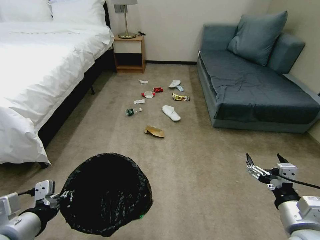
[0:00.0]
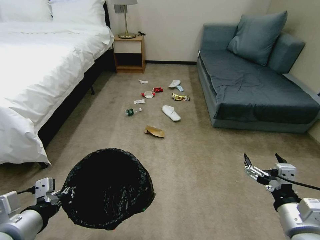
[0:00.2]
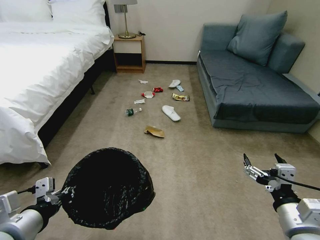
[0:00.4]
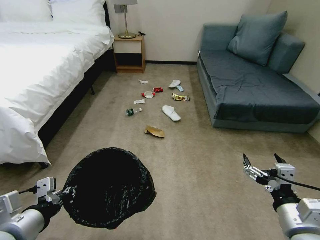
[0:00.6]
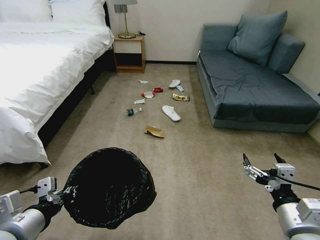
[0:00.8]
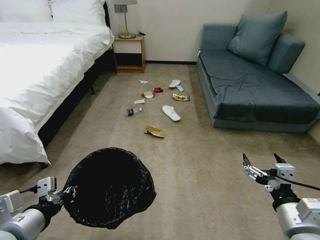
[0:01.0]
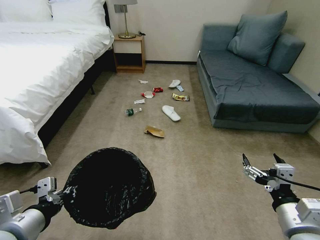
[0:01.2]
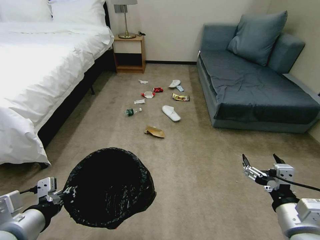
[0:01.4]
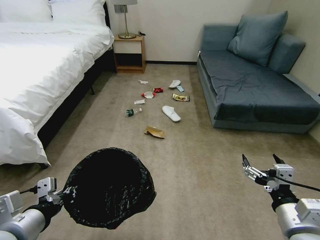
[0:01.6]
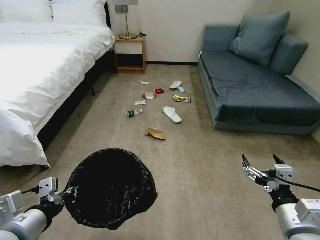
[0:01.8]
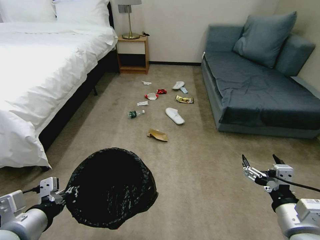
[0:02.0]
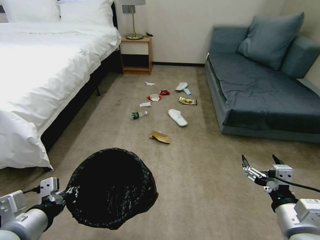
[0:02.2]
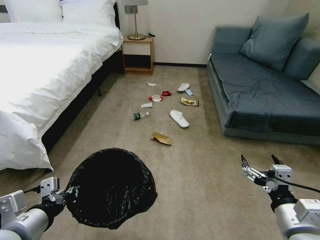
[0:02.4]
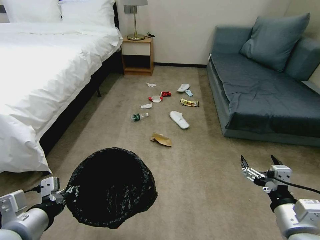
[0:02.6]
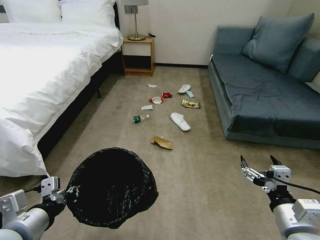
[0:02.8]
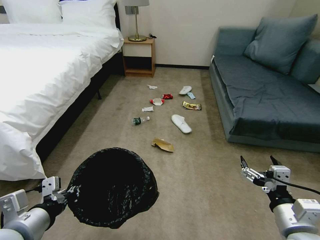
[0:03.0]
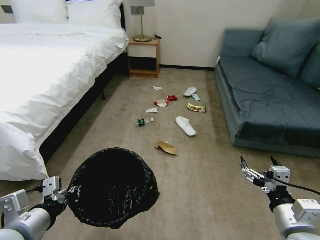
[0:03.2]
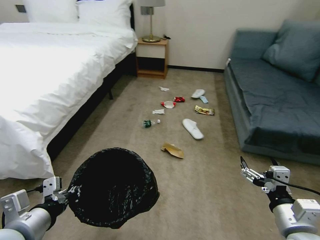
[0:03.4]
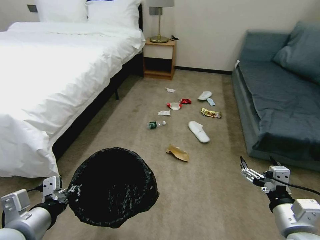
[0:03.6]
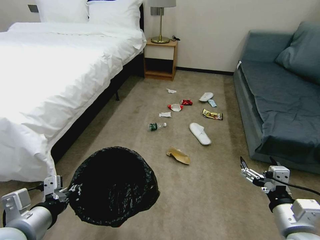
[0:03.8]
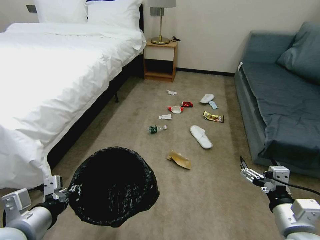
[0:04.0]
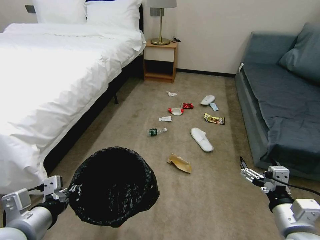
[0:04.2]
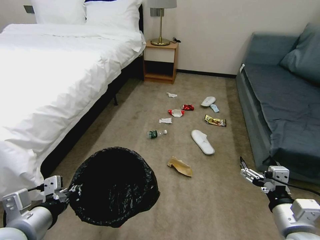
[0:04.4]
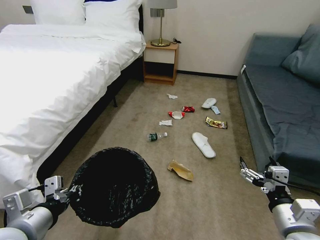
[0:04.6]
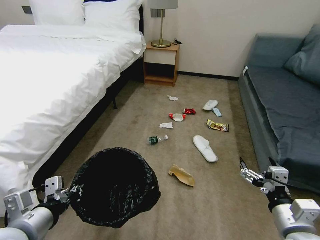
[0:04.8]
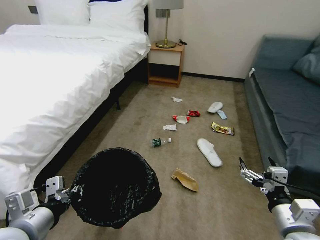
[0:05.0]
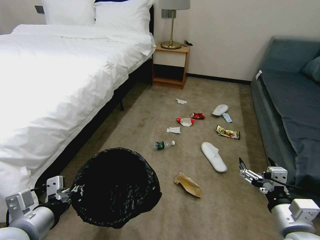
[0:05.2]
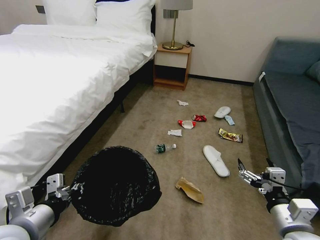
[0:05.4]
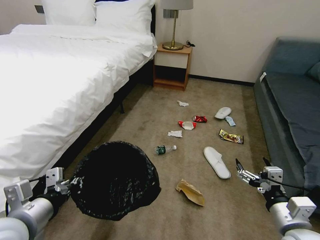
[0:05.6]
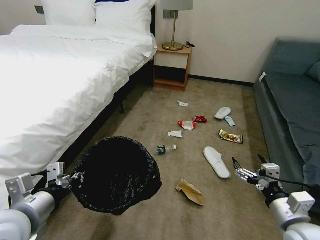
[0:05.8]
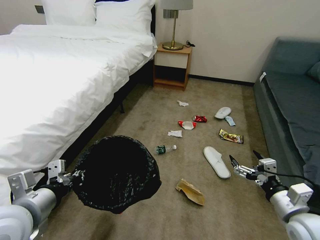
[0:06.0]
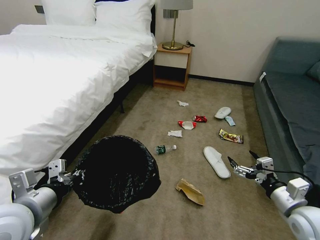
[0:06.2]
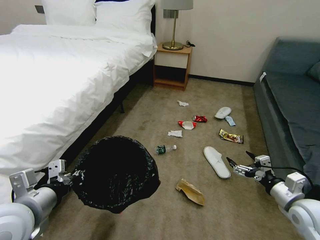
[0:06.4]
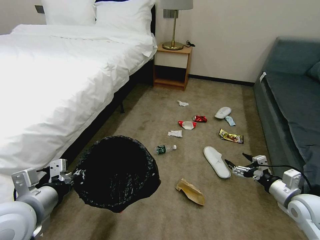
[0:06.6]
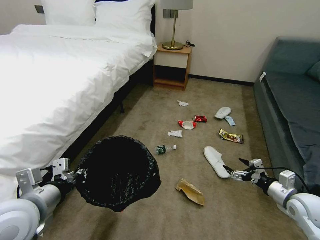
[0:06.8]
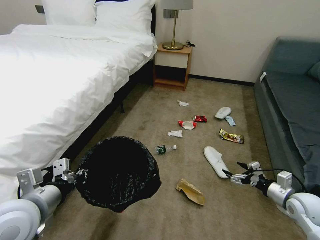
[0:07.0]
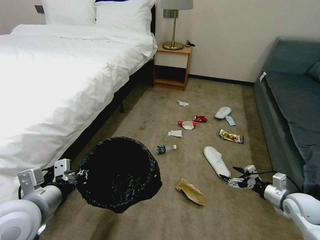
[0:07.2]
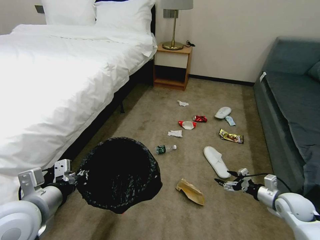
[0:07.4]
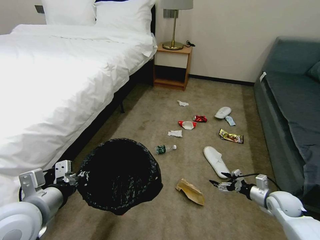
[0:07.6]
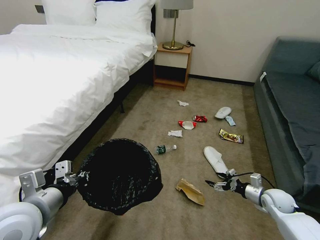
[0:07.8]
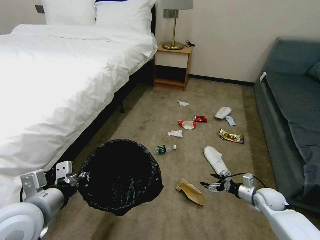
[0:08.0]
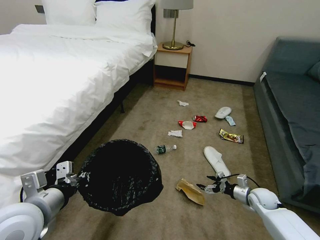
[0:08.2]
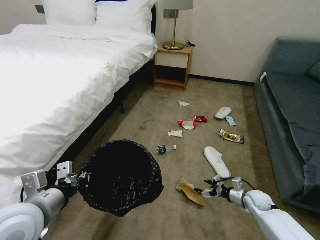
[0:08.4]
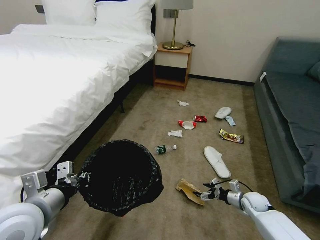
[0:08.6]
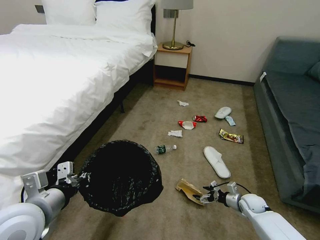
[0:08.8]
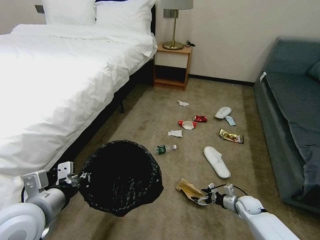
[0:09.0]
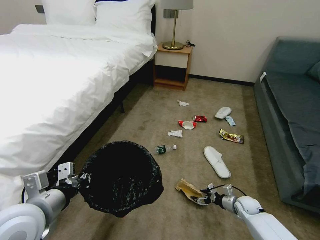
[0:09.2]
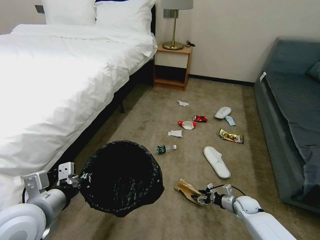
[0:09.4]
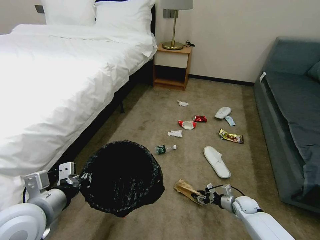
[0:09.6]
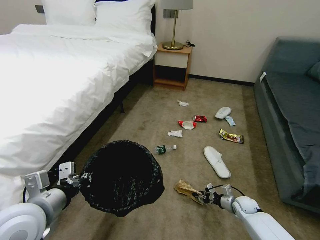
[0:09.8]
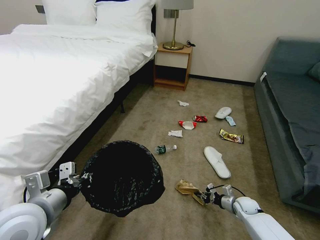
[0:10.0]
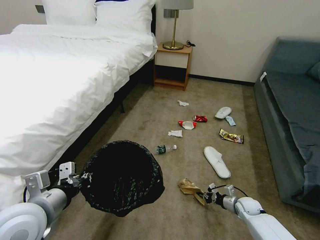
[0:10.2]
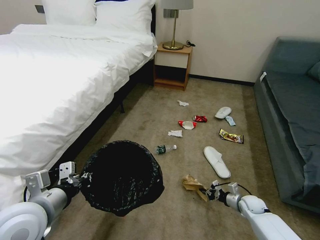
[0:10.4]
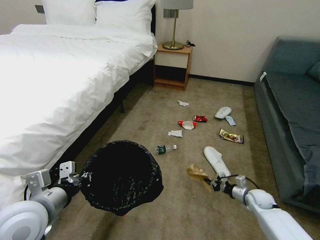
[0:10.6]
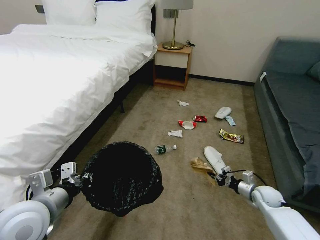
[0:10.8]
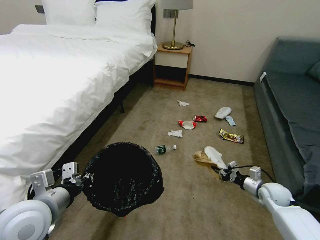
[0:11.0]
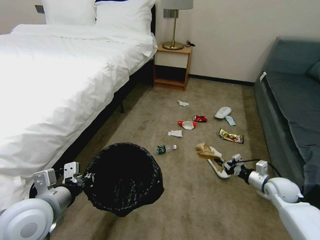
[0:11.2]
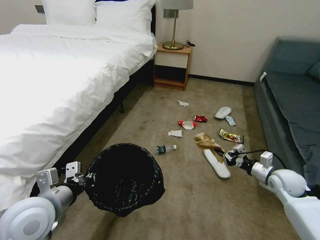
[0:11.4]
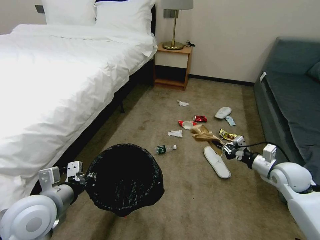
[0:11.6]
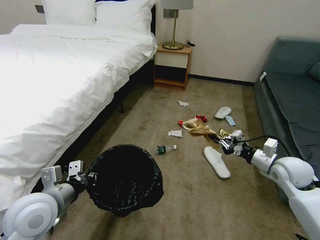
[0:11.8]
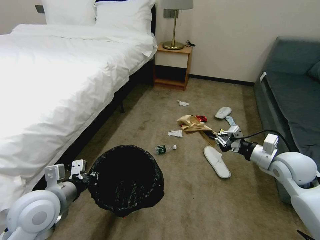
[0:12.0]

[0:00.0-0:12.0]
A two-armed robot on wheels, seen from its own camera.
Task of the whole recording: Pick up the trash bin, then pick up the garbage on the floor and place it into the trash bin.
0:04.4 to 0:06.0: The right gripper moves about 5 cm.
0:06.0 to 0:07.6: The right gripper goes approximately 20 cm downward, forward and to the right.
0:07.6 to 0:09.0: The right gripper is displaced downward and to the left by about 15 cm.
0:09.0 to 0:10.4: The right gripper closes up.
0:10.4 to 0:12.0: The right gripper travels upward by approximately 30 cm.

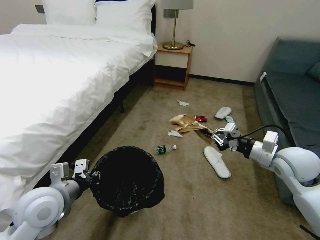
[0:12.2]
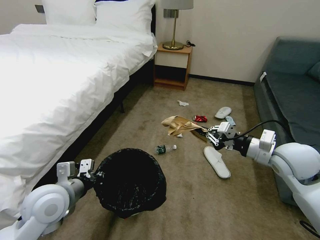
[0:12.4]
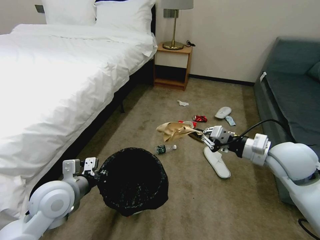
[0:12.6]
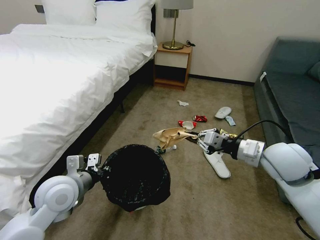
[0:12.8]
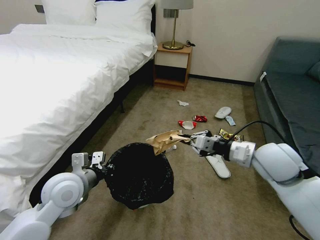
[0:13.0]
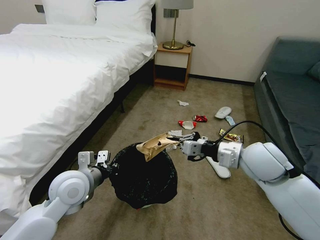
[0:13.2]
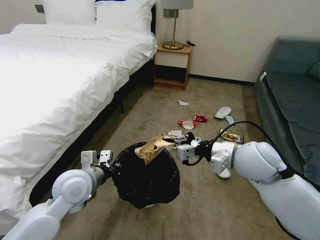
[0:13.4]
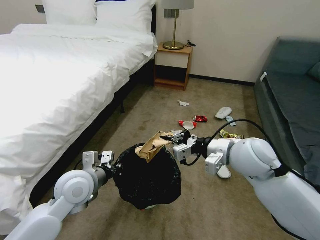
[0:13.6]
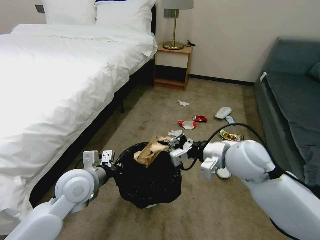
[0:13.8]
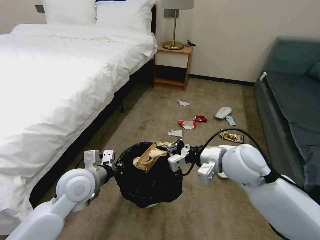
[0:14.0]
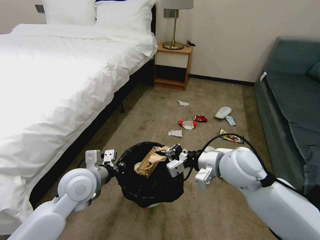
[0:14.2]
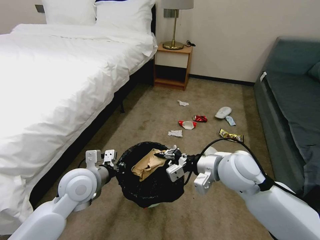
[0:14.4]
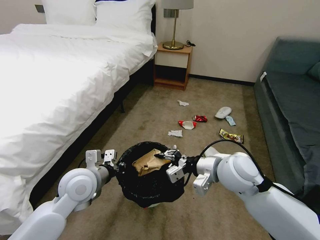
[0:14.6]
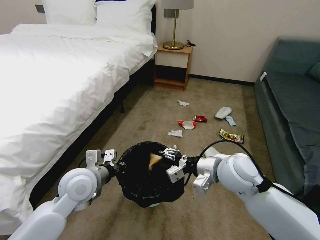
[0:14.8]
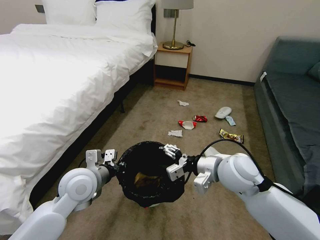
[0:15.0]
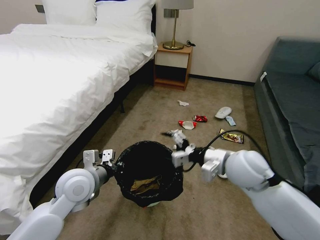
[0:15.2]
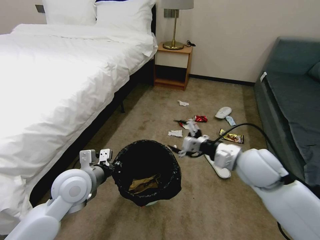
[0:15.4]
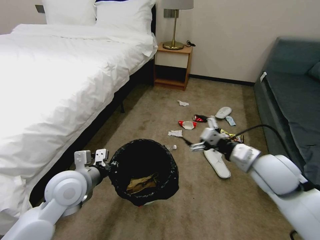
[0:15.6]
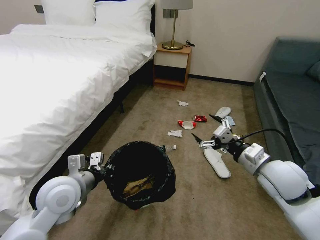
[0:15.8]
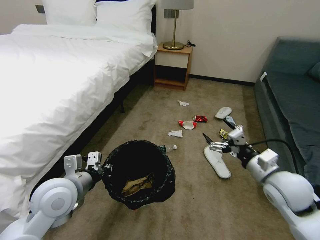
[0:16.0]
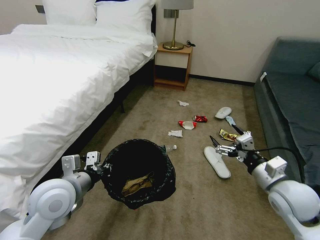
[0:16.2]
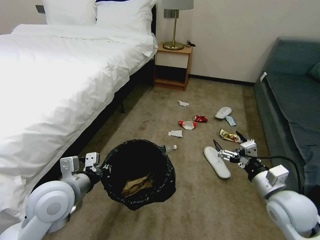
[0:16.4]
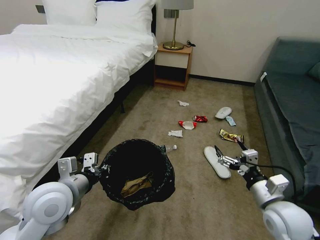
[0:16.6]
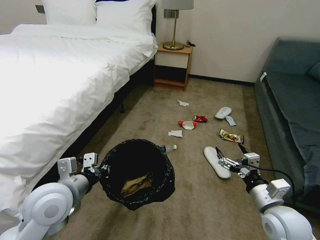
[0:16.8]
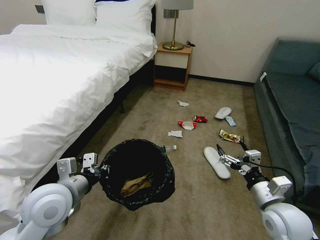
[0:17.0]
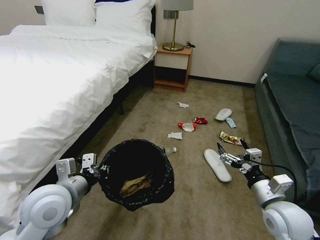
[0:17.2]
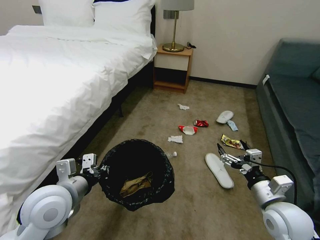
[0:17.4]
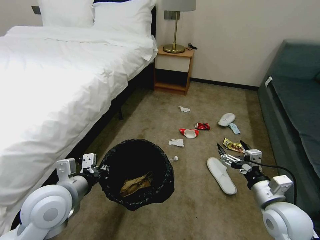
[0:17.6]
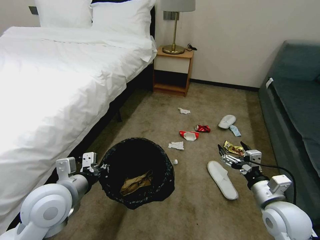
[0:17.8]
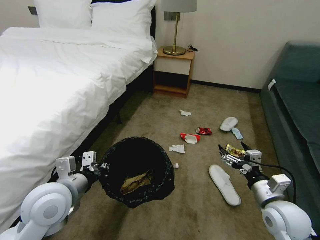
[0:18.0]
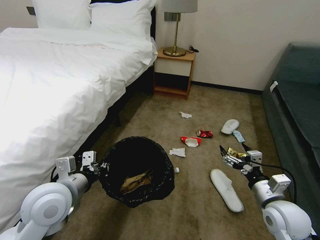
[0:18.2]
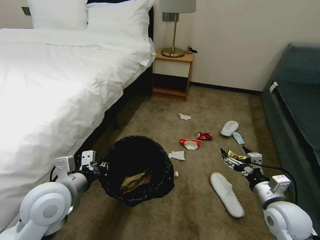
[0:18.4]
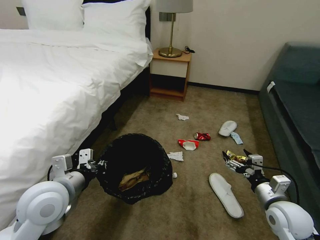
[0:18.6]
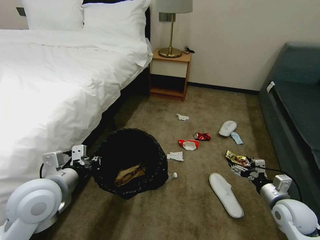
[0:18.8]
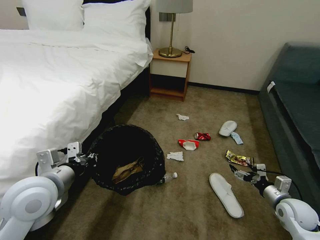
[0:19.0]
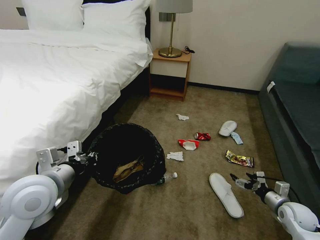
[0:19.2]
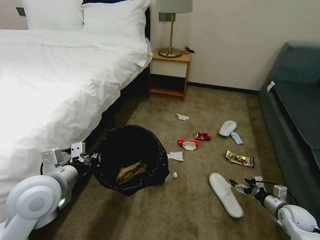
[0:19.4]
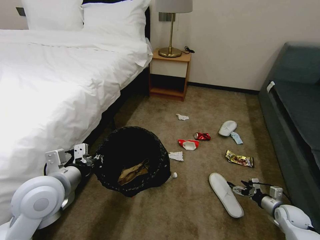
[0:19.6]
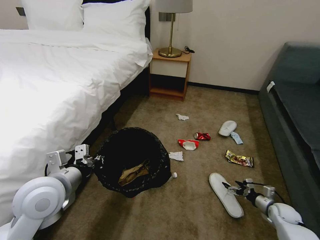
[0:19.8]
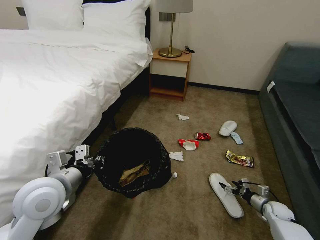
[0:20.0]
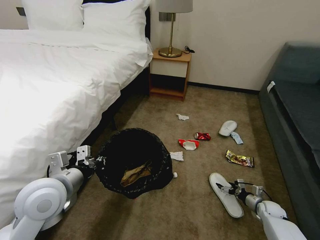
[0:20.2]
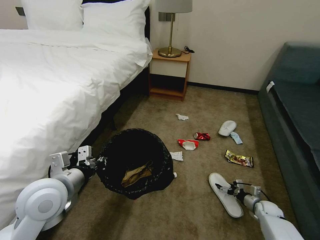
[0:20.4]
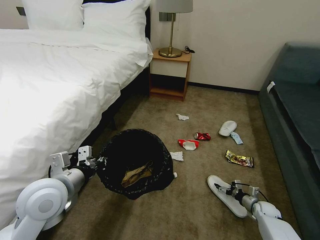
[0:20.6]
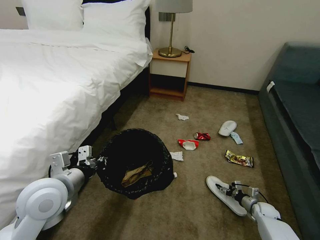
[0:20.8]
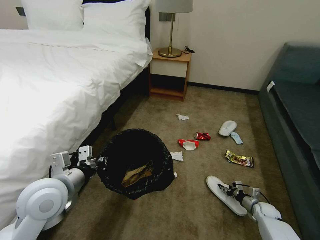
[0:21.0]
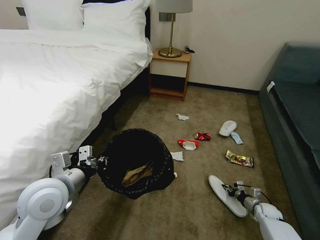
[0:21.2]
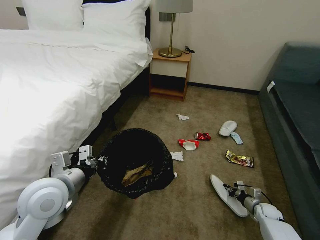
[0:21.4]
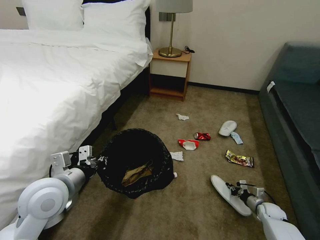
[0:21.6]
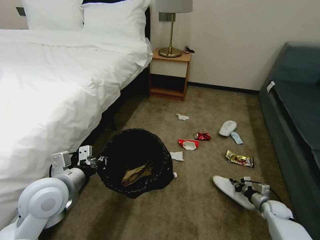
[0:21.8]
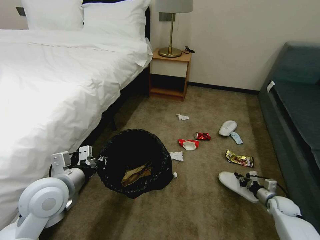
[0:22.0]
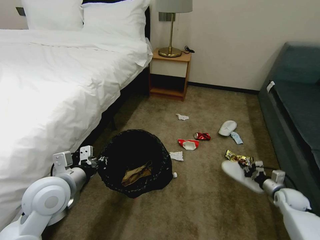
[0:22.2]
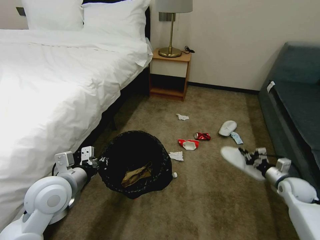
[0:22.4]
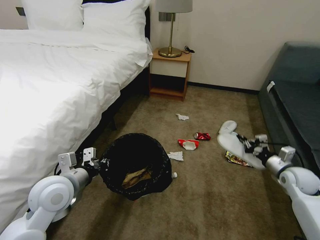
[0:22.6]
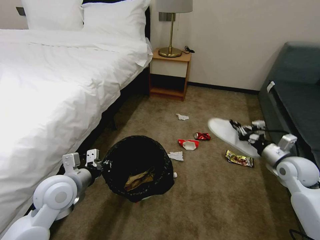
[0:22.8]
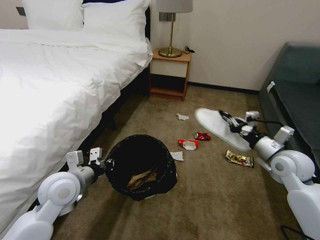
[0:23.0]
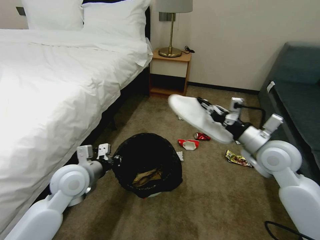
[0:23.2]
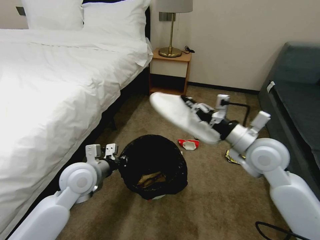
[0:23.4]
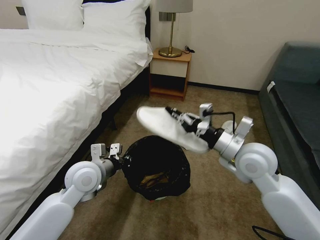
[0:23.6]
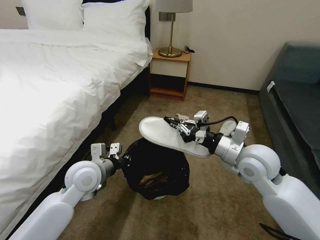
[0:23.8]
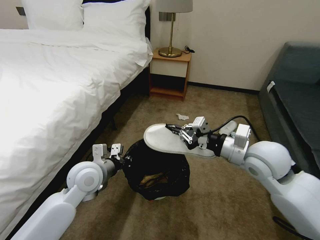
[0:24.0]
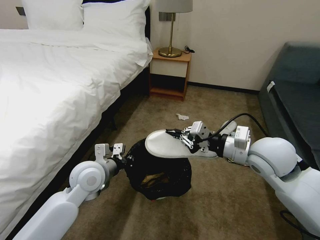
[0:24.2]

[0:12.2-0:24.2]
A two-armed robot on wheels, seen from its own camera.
Task of the whole recording: Pick up the trash bin, then pick up the garbage on the floor and place it into the trash bin.
0:12.2 to 0:13.8: The left gripper shifts approximately 10 cm forward and to the right, while the right gripper travels to the left by some 15 cm.
0:13.8 to 0:15.2: The right gripper opens.
0:15.2 to 0:16.6: The right gripper shifts some 20 cm backward, to the right and downward. The left gripper travels backward by about 5 cm.
0:18.2 to 0:19.8: The right gripper is displaced downward and to the right by about 25 cm.
0:19.8 to 0:21.2: The right gripper heads downward, covering some 5 cm, and closes its fingers.
0:21.2 to 0:22.6: The right gripper is displaced upward by roughly 25 cm.
0:22.6 to 0:24.2: The left gripper moves to the right and forward, some 10 cm. The right gripper is displaced to the left and upward by approximately 30 cm.
